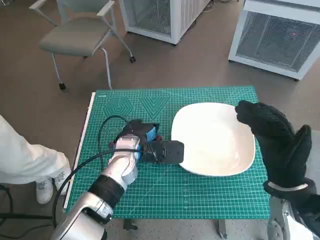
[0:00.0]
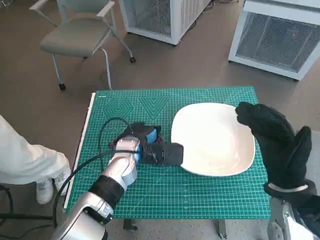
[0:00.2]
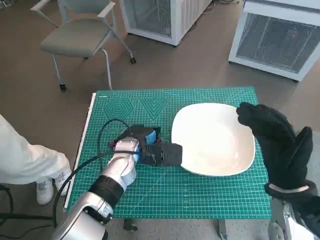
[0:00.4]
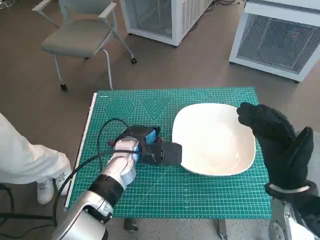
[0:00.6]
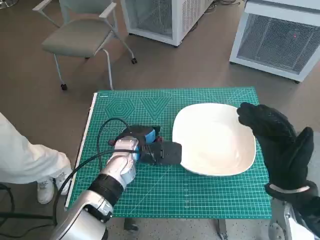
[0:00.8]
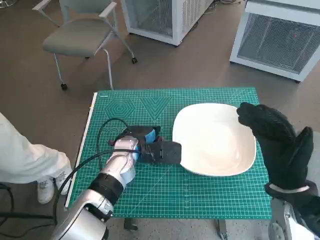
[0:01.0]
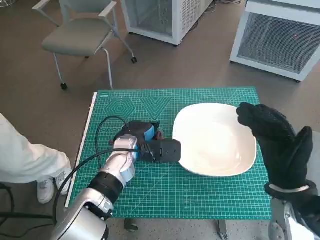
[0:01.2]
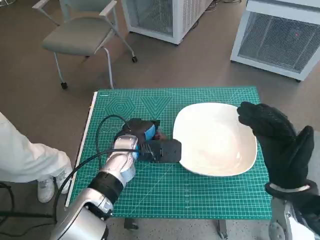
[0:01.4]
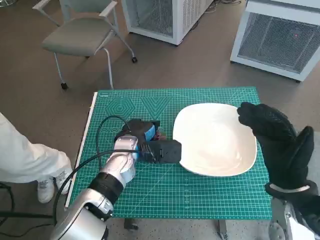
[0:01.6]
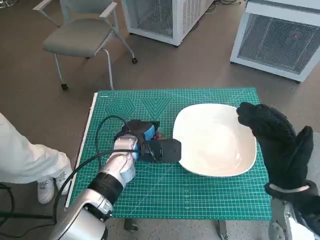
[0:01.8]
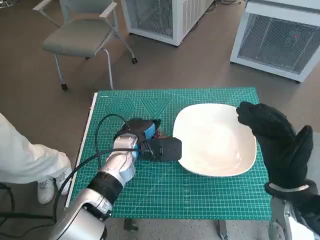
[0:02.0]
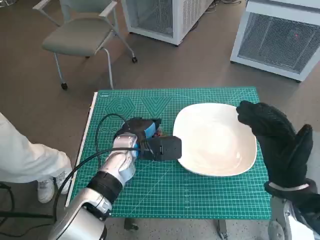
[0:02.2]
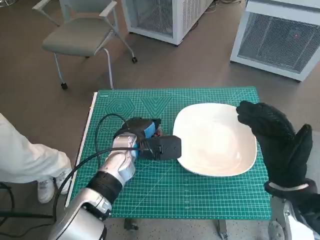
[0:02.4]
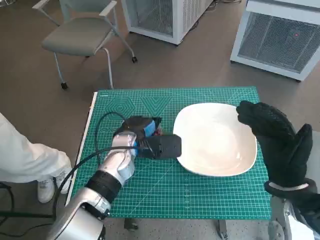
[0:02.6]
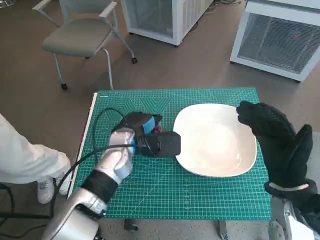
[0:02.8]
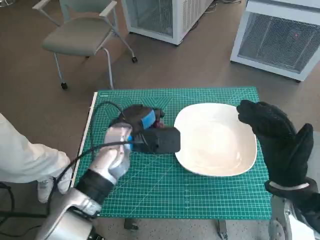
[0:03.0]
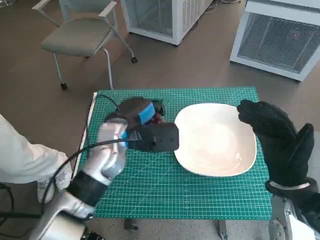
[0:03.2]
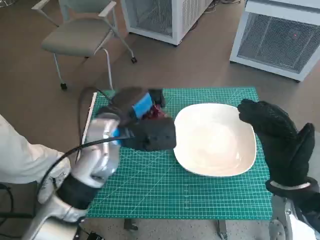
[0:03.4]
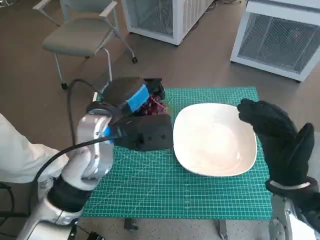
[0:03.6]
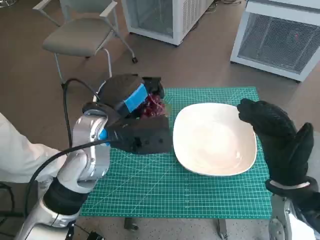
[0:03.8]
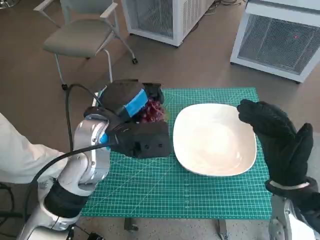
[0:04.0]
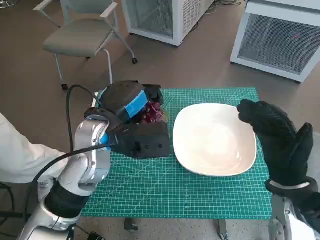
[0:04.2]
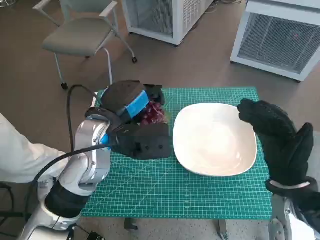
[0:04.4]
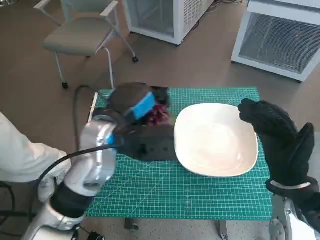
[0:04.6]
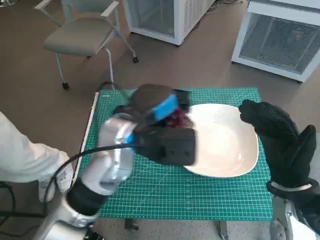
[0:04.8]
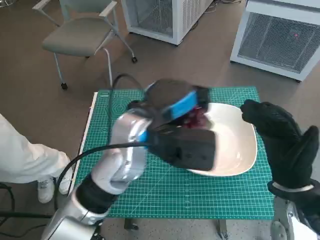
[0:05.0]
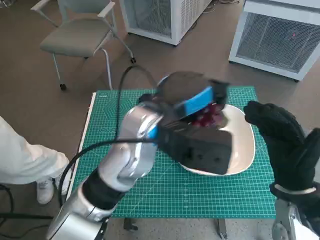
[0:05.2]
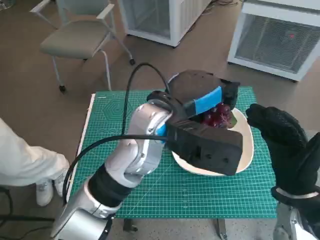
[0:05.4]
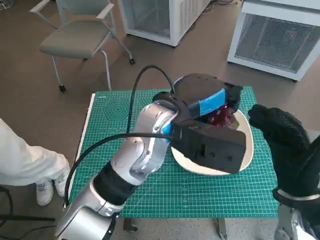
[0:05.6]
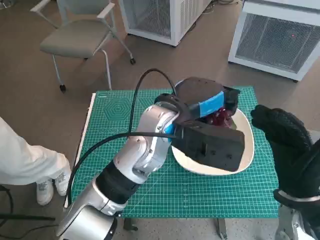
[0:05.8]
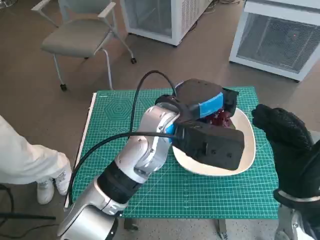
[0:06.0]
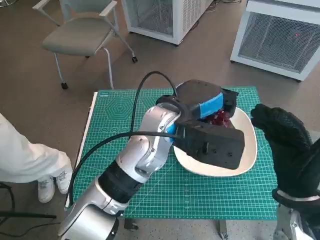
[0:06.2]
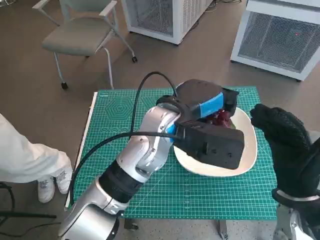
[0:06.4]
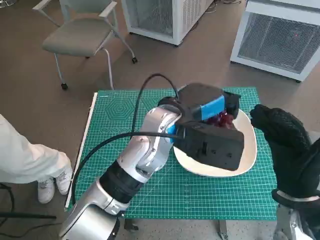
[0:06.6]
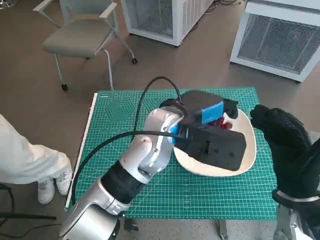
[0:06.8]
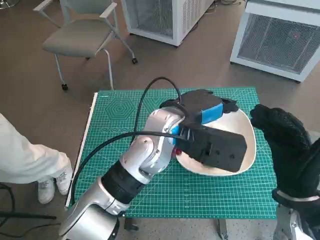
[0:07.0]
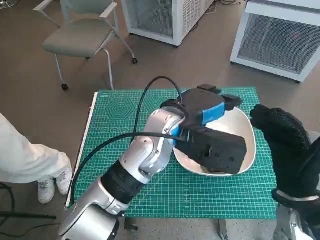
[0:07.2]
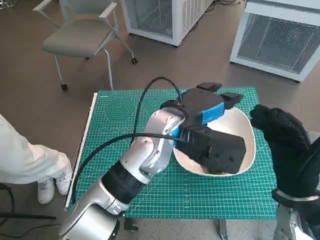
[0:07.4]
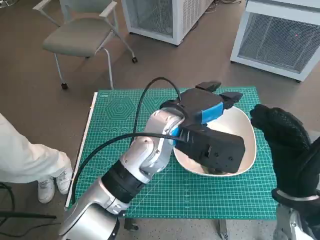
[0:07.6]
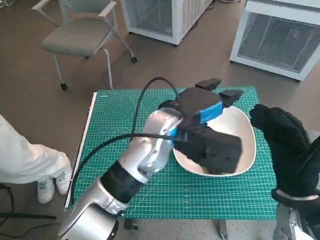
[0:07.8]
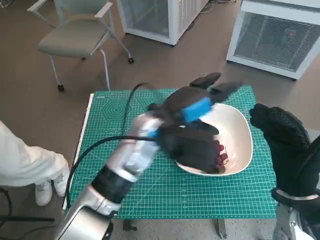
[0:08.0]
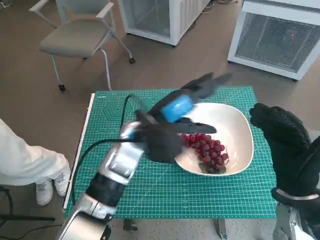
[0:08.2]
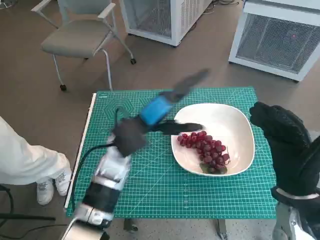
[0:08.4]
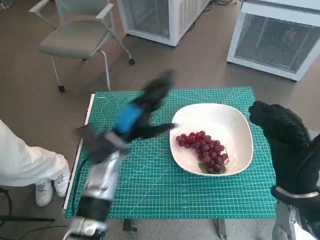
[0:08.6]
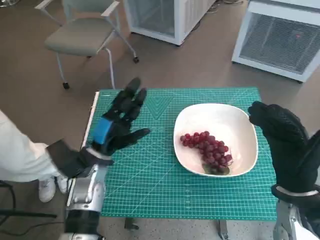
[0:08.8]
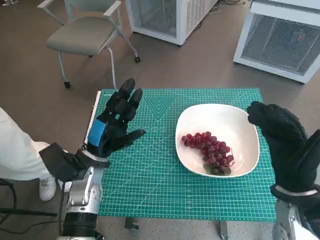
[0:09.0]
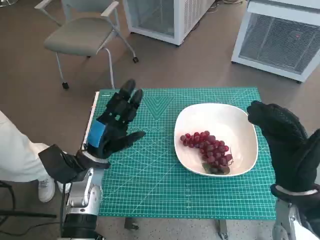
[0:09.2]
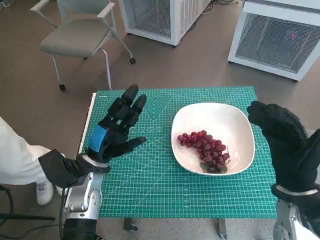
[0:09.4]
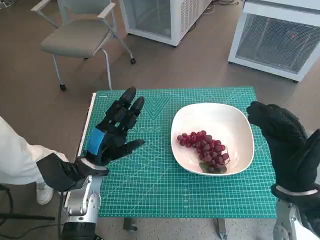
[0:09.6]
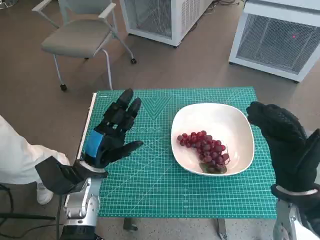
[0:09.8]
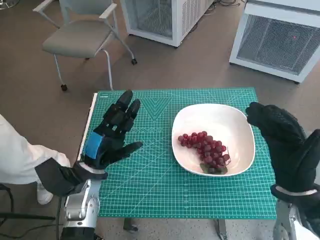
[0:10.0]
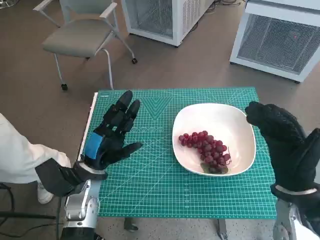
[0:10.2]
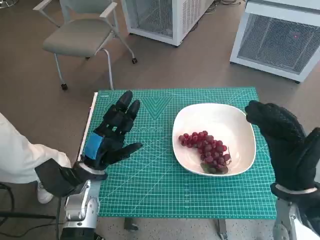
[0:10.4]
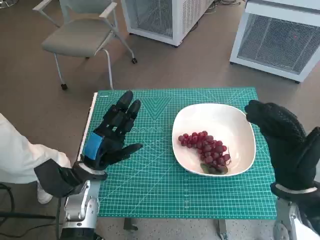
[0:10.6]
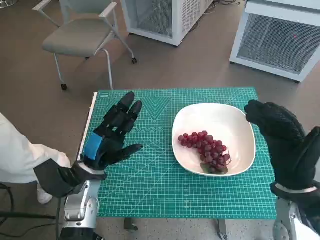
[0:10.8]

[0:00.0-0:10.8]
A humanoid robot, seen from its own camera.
Task of the whole recording: Pick up the grapes and put them on the plate.
Step, 0:01.4 to 0:07.0: Place the grapes in the plate with left hand.
0:00.0 to 0:01.6: Neither hand changes place.
0:01.6 to 0:03.0: There are only small adjustments of the hands.
0:03.0 to 0:04.6: The left hand goes approximately 10 cm upward.
0:04.6 to 0:06.2: The left hand is displaced to the right by some 10 cm.
0:06.2 to 0:07.8: The hands move only a little.
0:07.8 to 0:09.2: The left hand heads to the left and downward, covering some 20 cm.
0:09.2 to 0:10.8: The hands make only small movements.

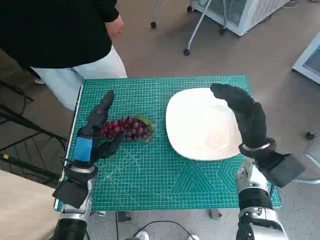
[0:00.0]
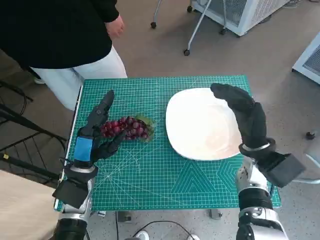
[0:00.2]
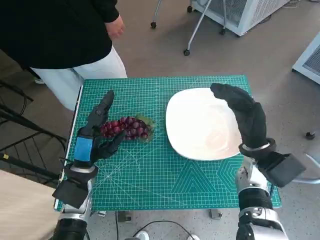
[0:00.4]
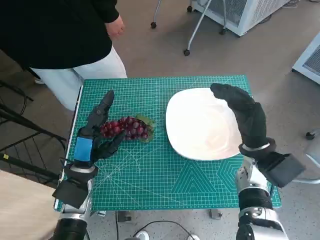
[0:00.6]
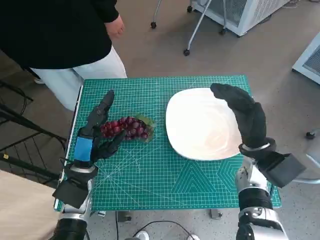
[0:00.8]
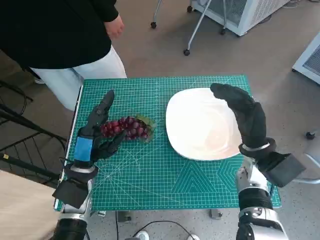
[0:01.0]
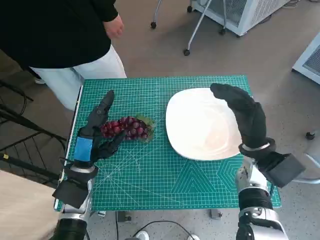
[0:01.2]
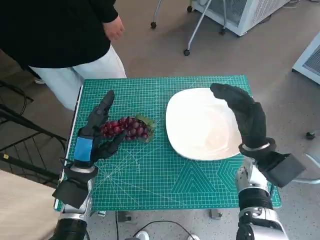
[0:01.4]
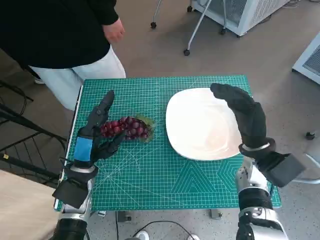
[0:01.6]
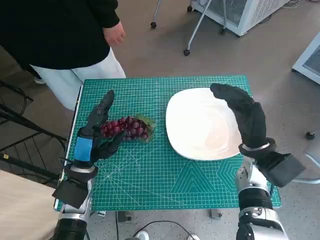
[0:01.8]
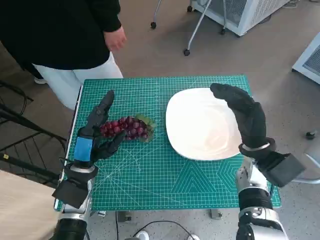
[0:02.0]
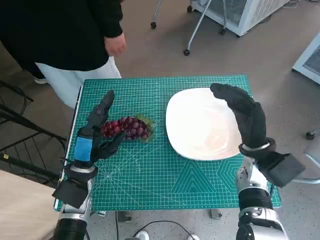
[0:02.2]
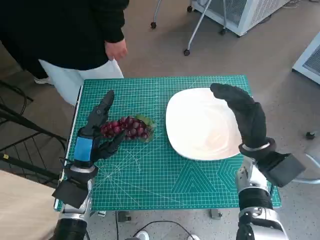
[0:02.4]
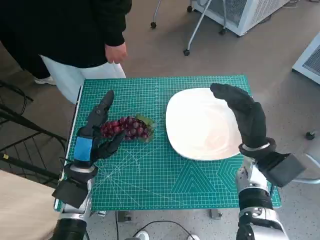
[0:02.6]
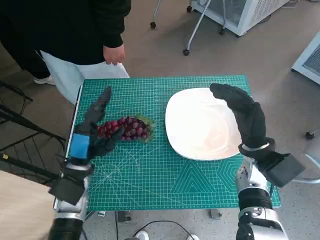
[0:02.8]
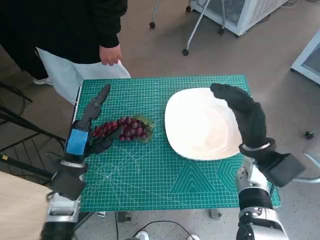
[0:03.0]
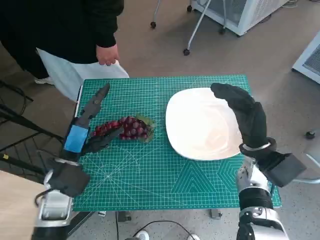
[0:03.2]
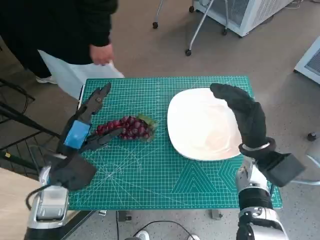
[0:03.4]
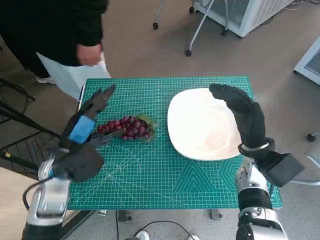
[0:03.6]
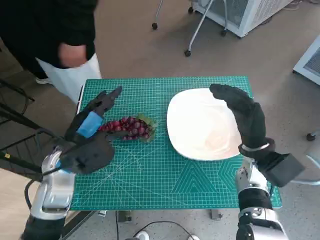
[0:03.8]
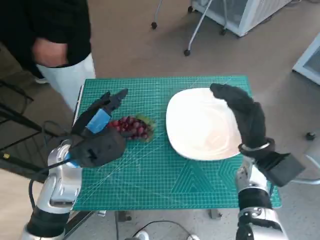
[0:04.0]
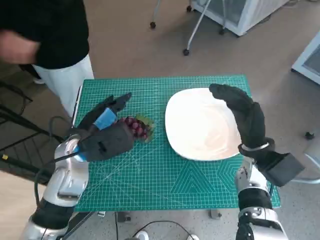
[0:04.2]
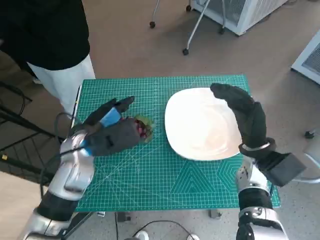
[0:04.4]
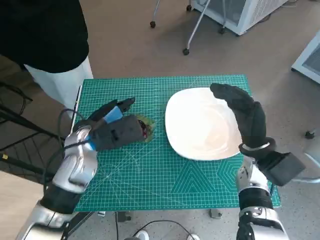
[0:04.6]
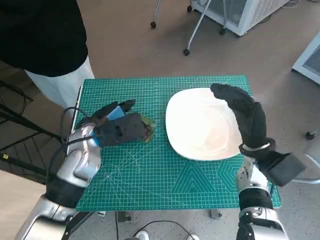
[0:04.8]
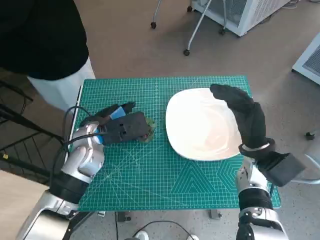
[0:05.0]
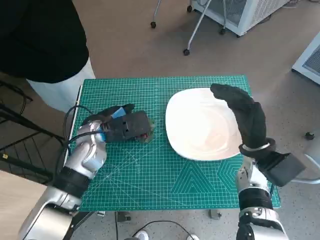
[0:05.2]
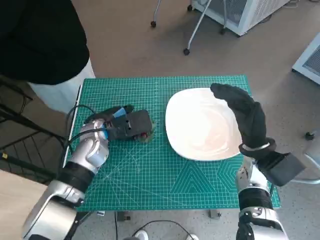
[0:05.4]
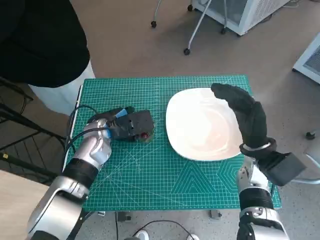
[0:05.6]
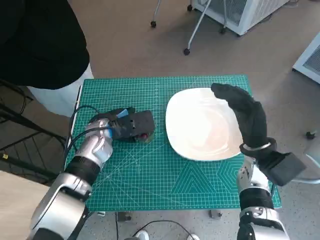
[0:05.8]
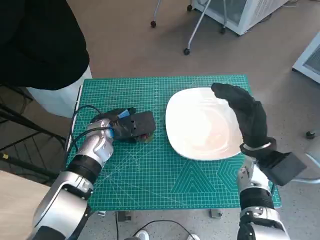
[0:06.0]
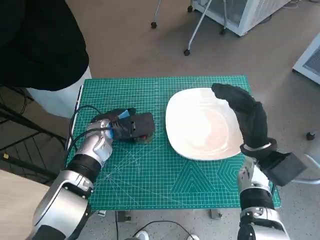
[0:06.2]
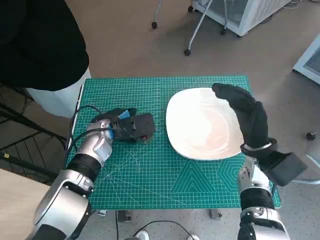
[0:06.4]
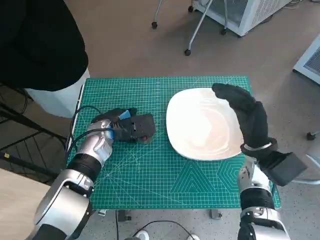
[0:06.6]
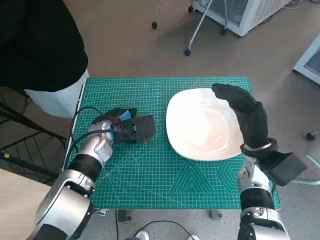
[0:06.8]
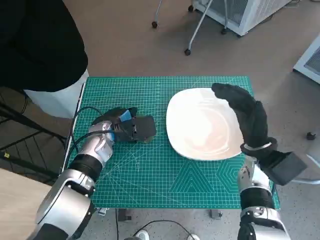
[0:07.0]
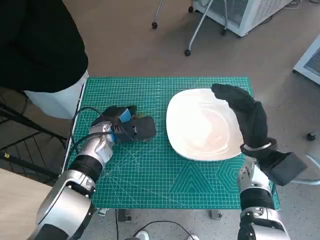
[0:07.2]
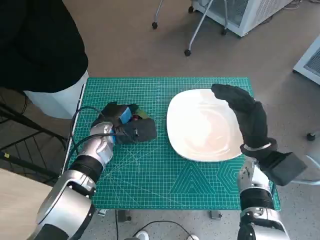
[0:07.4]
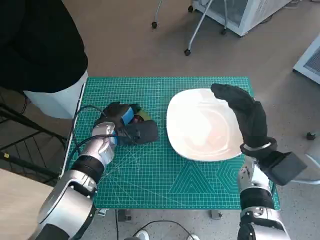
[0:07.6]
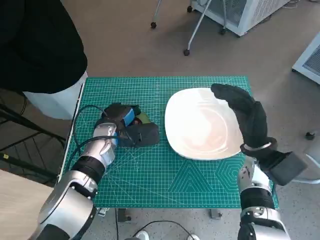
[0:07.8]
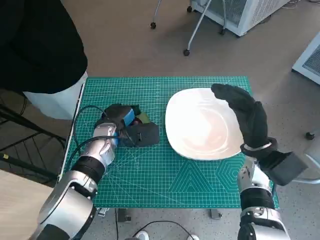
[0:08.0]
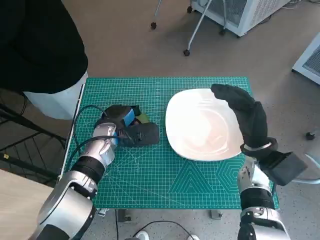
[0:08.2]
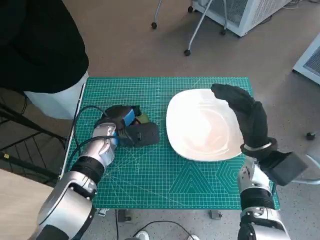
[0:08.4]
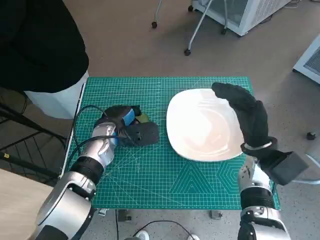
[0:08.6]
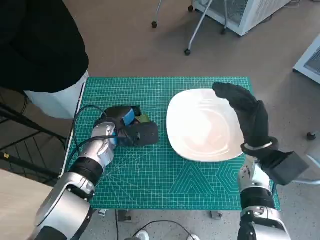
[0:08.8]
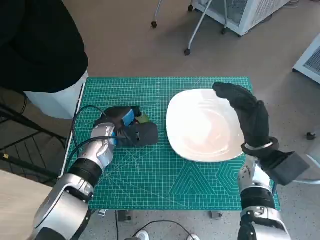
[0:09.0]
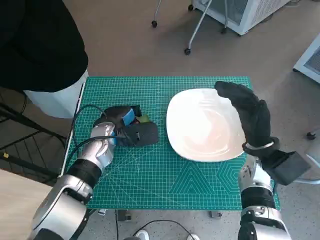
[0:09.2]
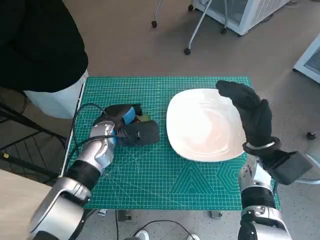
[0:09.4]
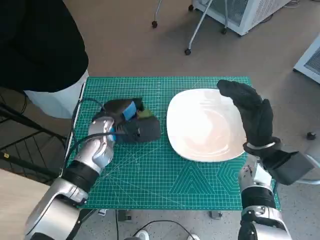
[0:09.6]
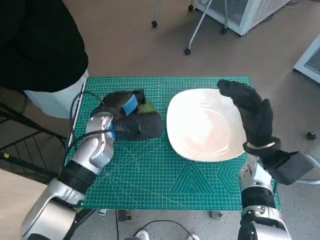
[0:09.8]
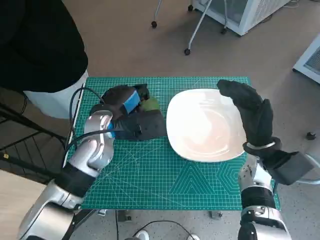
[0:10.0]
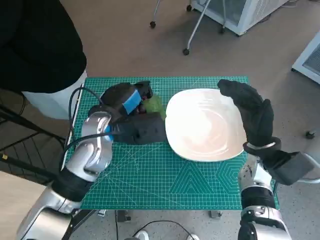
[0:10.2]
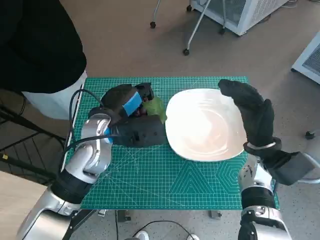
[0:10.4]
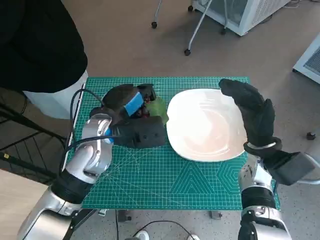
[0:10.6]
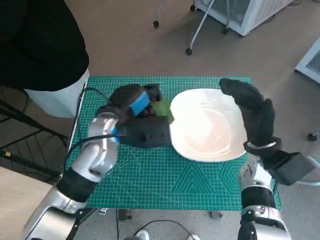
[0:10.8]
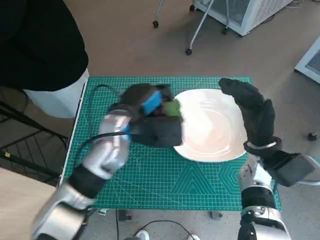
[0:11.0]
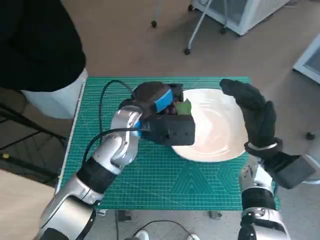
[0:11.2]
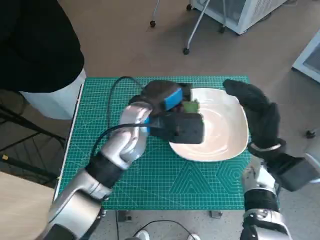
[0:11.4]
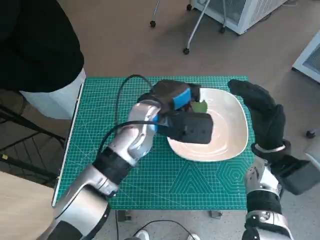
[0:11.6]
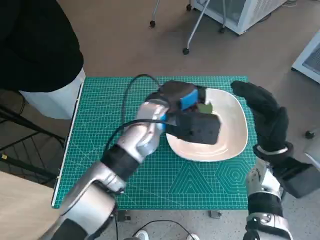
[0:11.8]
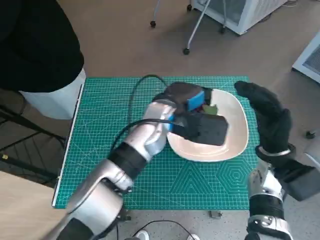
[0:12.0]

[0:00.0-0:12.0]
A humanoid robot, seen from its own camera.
Task of the whole recording: Pick up the grapes and put them on the plate.
Step, 0:00.0 to 0:08.8: Grasp the grapes with left hand.
0:01.6 to 0:03.0: The hands stay close to where they were, moving slightly.
0:03.0 to 0:04.4: The left hand goes approximately 5 cm upward.
0:04.4 to 0:06.0: The left hand goes roughly 5 cm forward.
0:06.0 to 0:07.6: The hands move only a little.
0:07.6 to 0:09.0: Both hands stay put.
0:09.0 to 0:10.4: The left hand goes approximately 10 cm upward.
0:10.4 to 0:12.0: The left hand shifts approximately 10 cm to the right.
